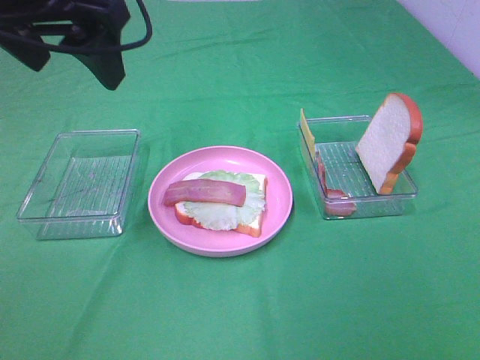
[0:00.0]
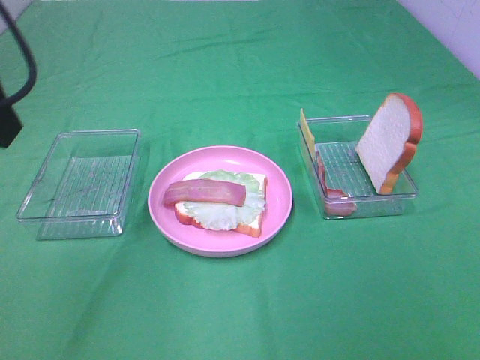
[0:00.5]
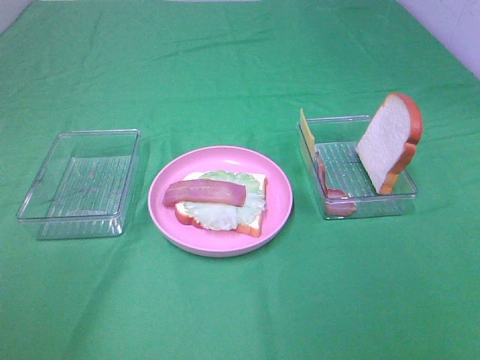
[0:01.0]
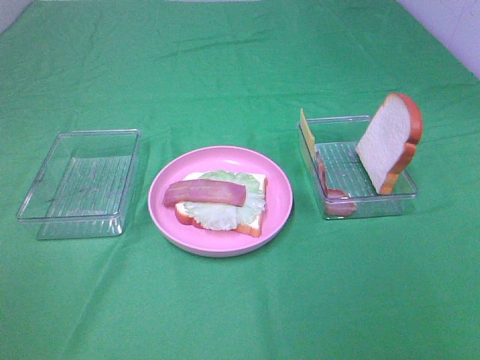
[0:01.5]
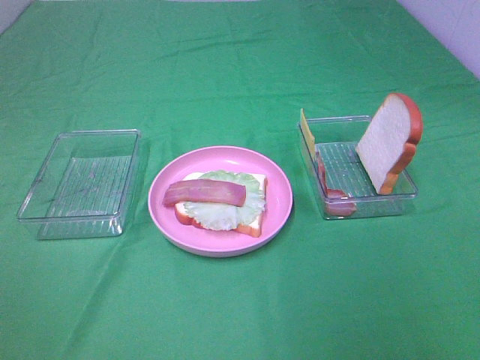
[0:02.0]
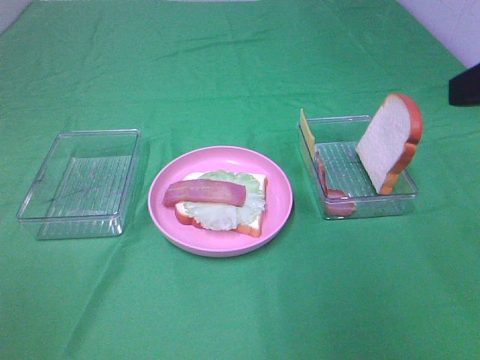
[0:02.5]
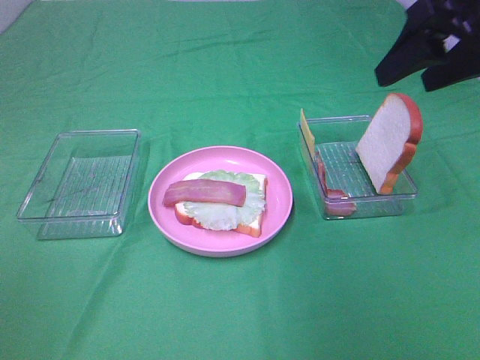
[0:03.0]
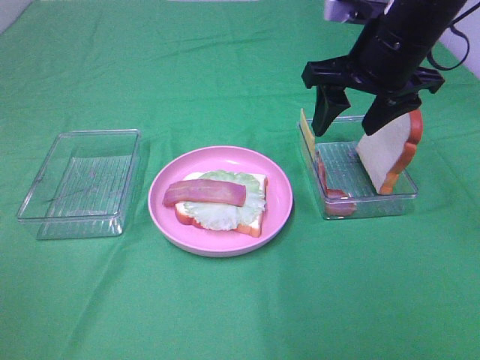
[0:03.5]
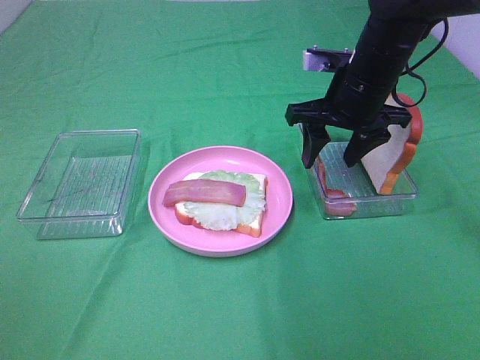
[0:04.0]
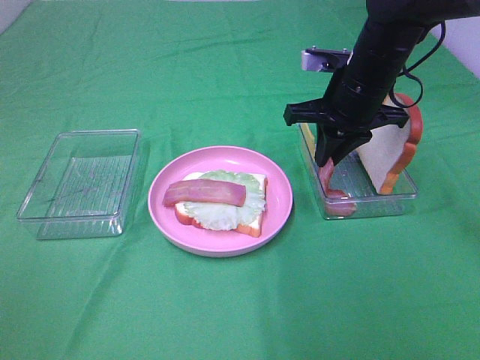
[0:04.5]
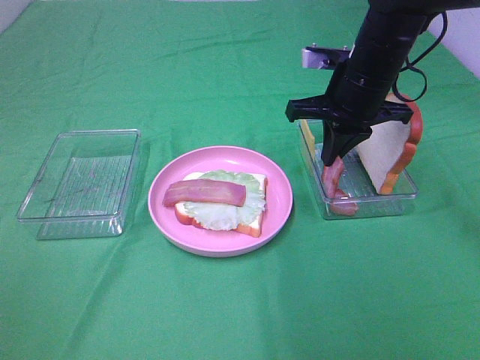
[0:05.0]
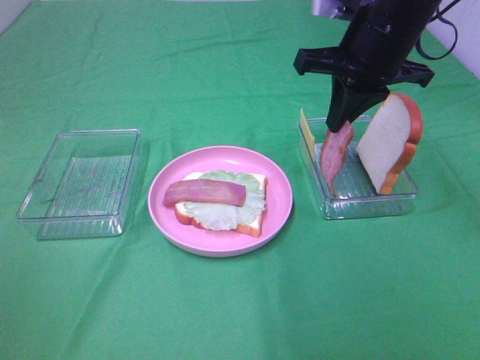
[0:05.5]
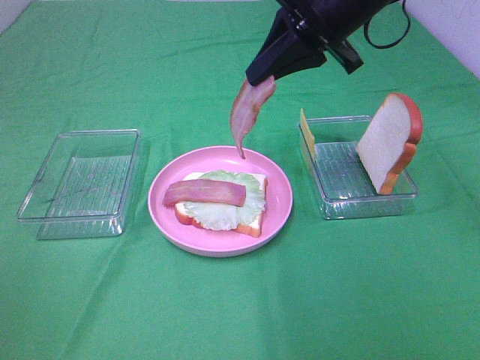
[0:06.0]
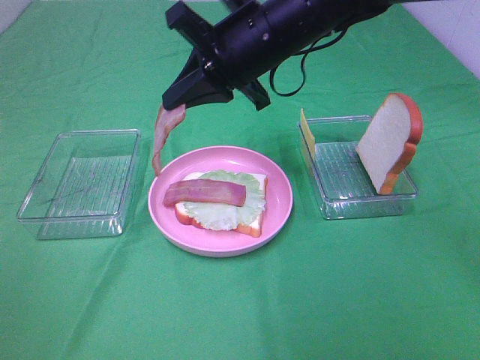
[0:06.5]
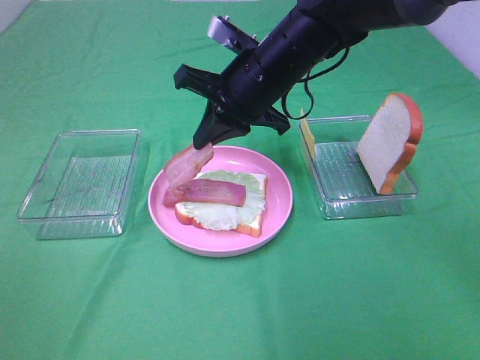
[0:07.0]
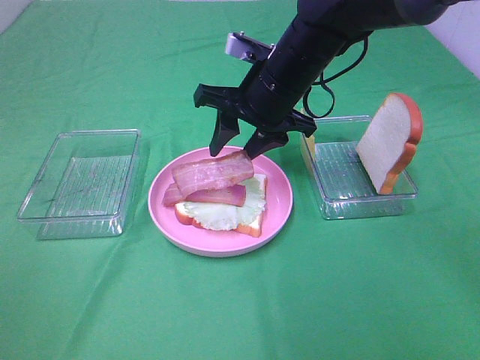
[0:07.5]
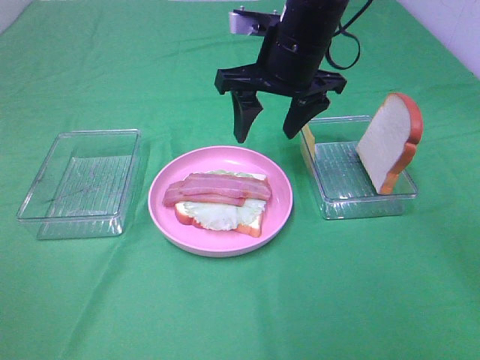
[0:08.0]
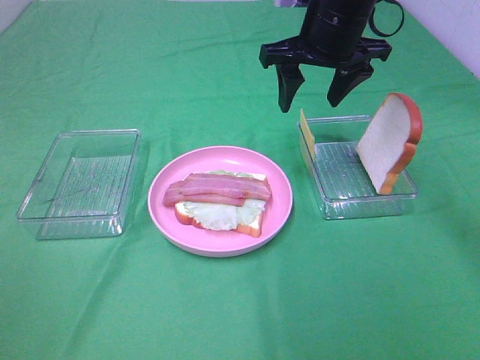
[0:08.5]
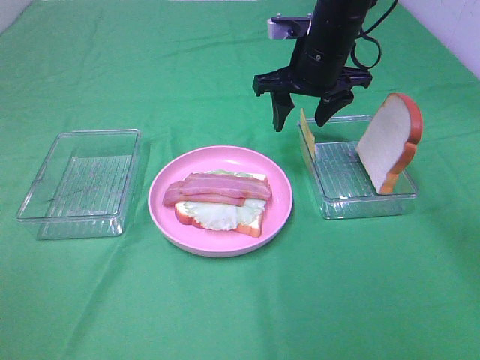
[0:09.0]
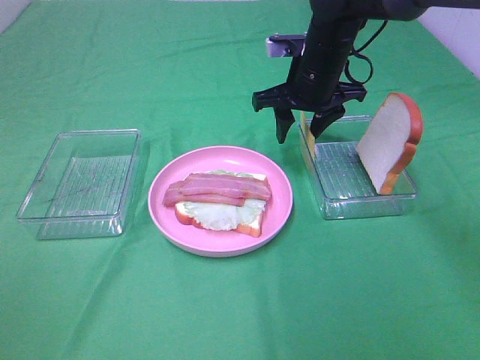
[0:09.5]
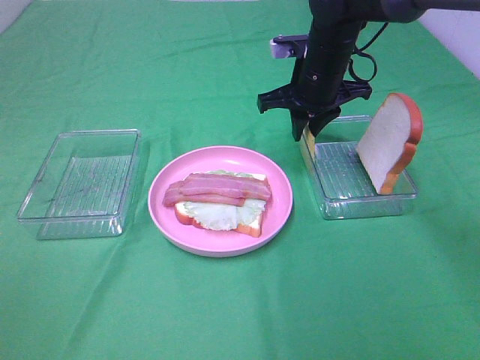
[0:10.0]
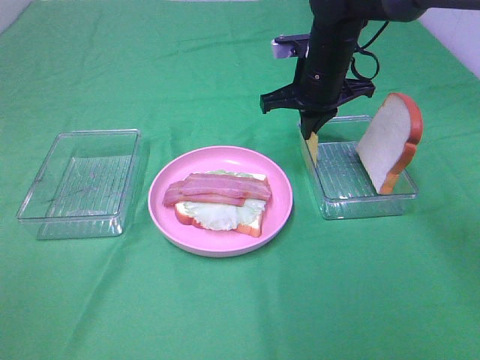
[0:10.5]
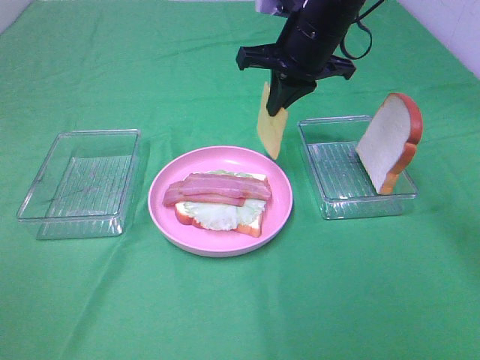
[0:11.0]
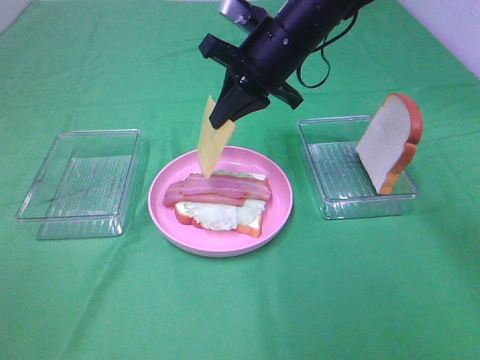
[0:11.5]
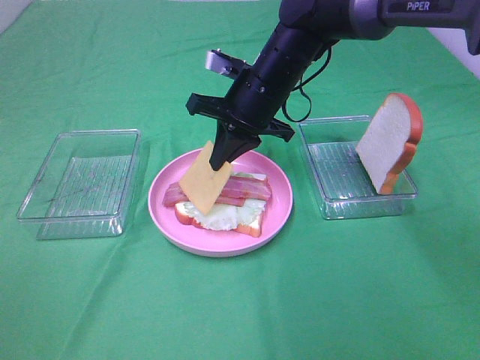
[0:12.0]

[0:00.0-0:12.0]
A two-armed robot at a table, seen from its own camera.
Task of the whole recording: Make sandwiches.
Step, 0:00.0 to 0:04.5: Right hand:grab the bacon.
Step, 0:05.0 to 0:07.5: Right hand:place bacon on bacon.
Step, 0:08.0 to 0:10.5: Right hand:grab the cheese slice.
0:00.0 to 0:02.0: The left gripper goes some 35 cm backward and to the left.
0:02.0 to 0:04.0: The right gripper shifts about 35 cm forward.
0:04.0 to 0:06.0: The right gripper moves upward, roughly 10 cm, and closes its fingers.
0:06.0 to 0:08.0: The right gripper moves downward, about 5 cm, and opens.
0:08.0 to 0:10.0: The right gripper goes about 10 cm downward and forward, and closes.
0:10.0 to 0:12.0: The right gripper travels to the left by about 5 cm.

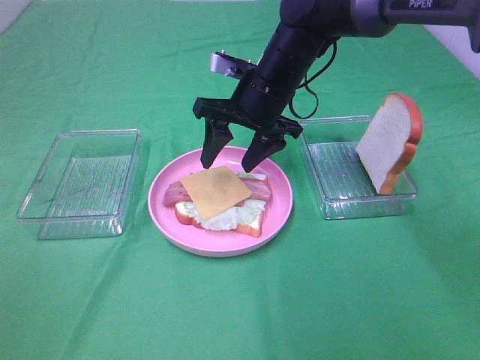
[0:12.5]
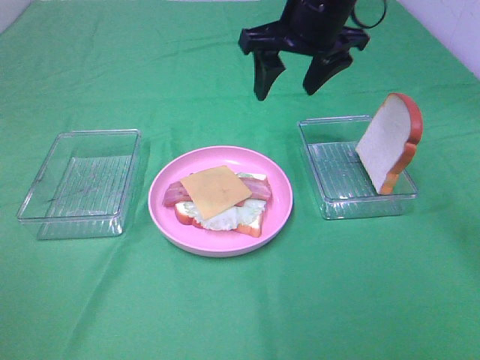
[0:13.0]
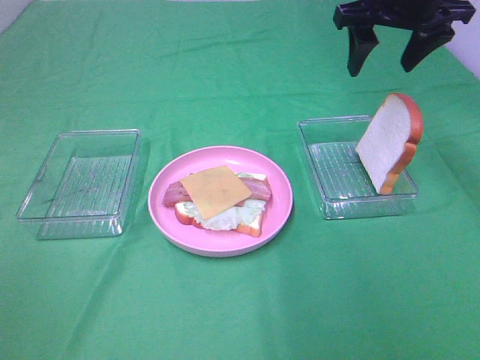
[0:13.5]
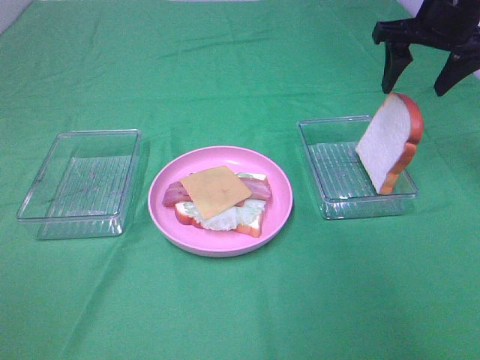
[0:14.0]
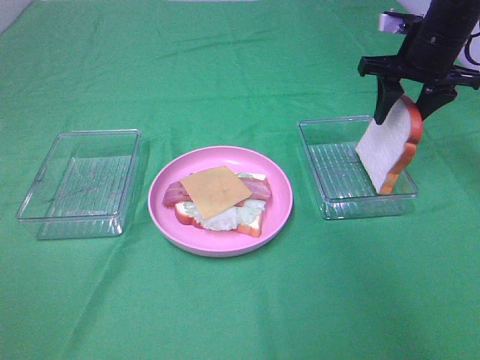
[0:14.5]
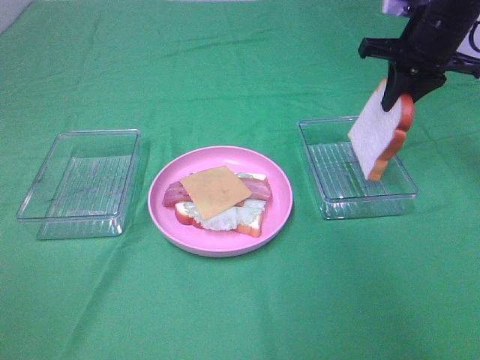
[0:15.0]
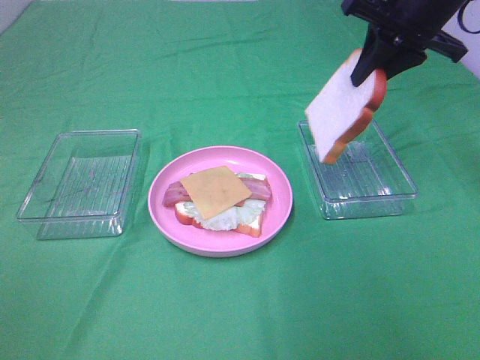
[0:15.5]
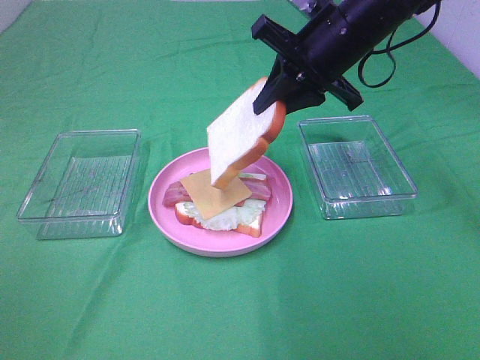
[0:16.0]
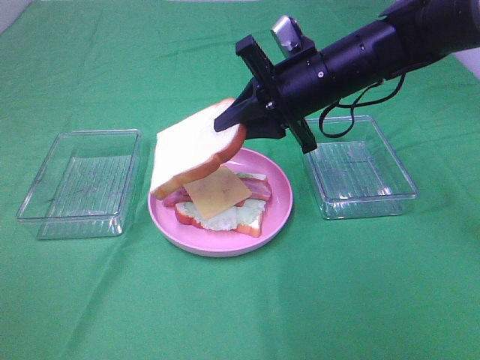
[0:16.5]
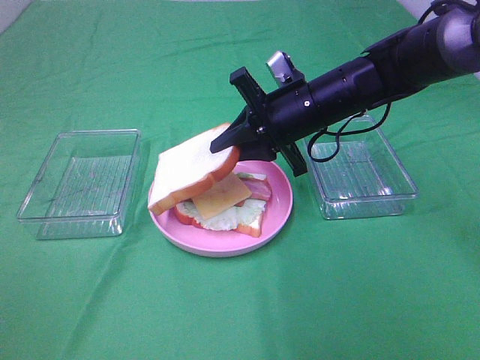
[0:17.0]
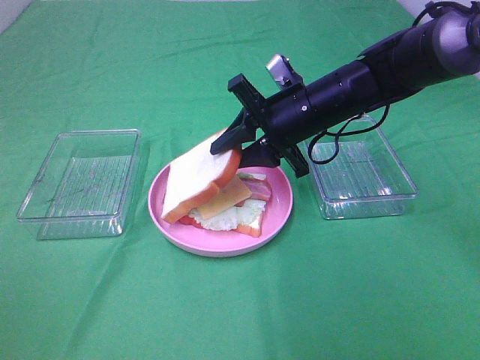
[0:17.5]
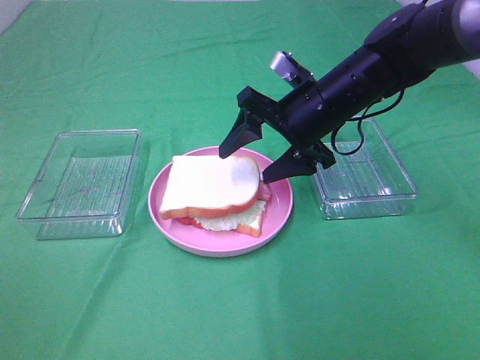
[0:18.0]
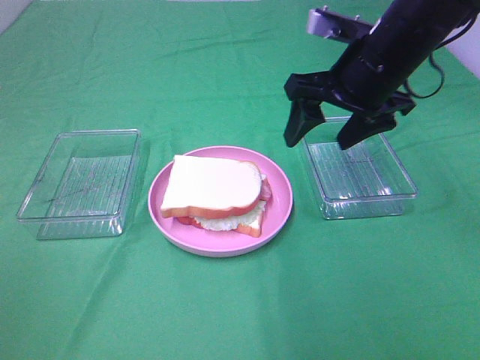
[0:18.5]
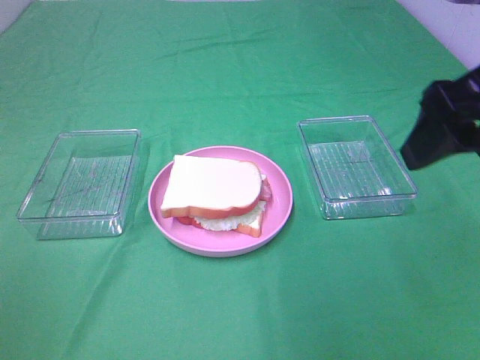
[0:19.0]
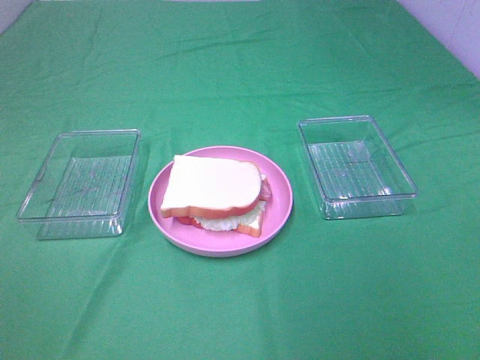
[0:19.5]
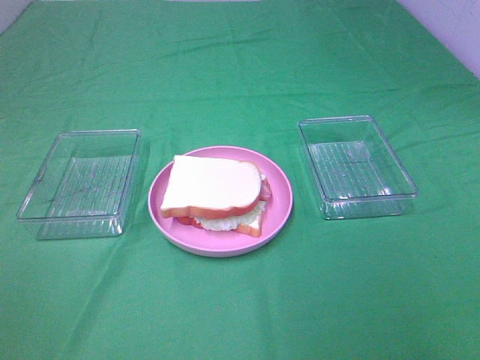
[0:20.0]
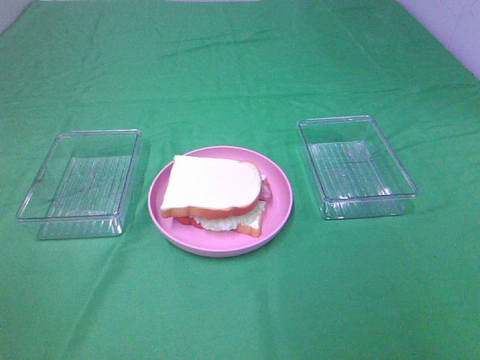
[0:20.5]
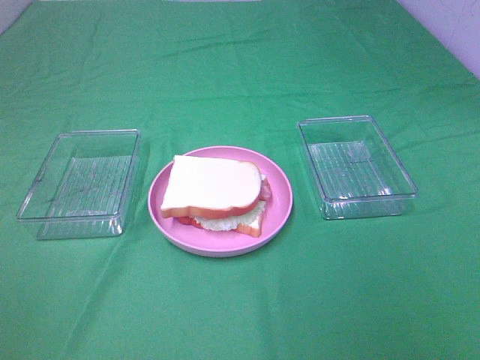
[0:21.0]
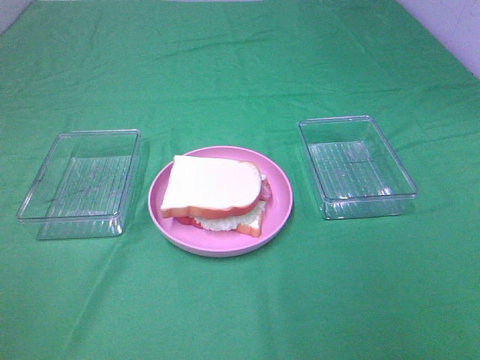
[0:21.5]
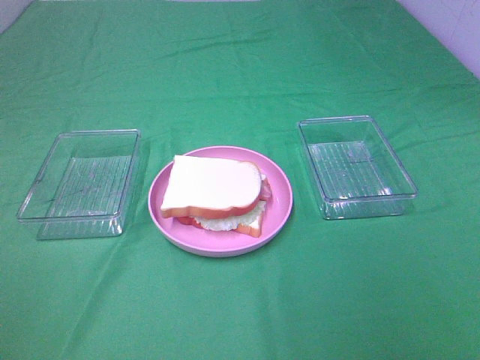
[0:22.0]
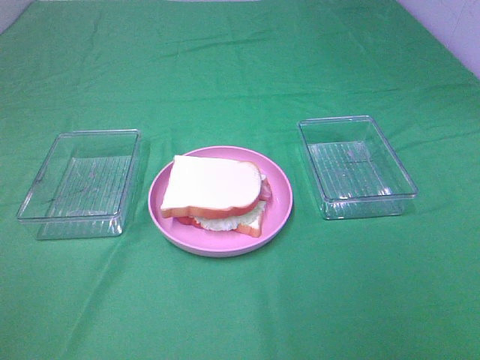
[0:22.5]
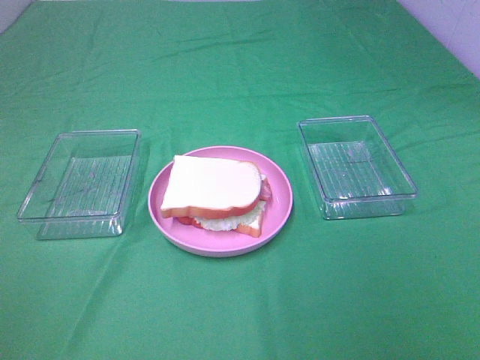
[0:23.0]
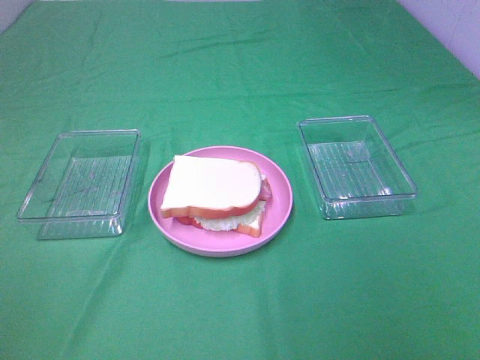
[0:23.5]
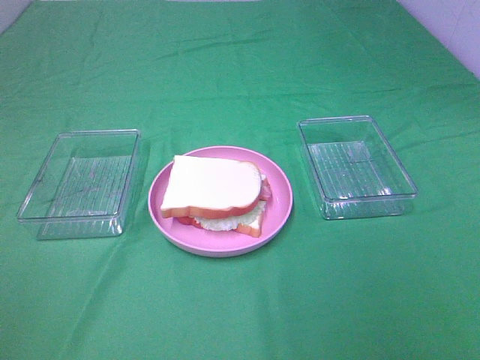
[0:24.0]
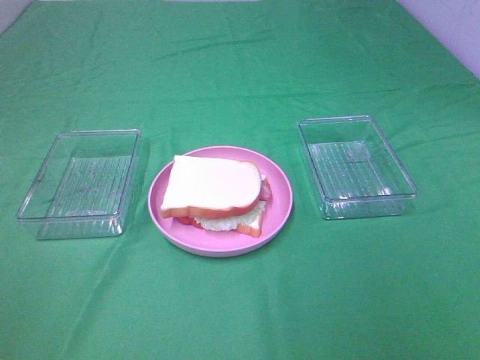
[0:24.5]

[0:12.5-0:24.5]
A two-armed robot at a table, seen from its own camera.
Task of the whole recording: Make sandwiches.
Step, 0:13.0 to 0:14.5: Right hand:grab the bread slice.
Step, 0:15.0 to 0:18.0: Right hand:place the bread slice on the cheese slice.
0:12.5 to 0:14.5: The right gripper moves to the right, some 20 cm.
0:14.5 to 0:16.5: The right gripper moves to the left and backward, approximately 15 cm.
0:16.5 to 0:18.5: The right gripper travels upward by some 5 cm, and opens.
0:18.5 to 0:20.5: The right gripper shifts roughly 35 cm backward.
0:22.5 to 0:24.5: Neither gripper changes place.

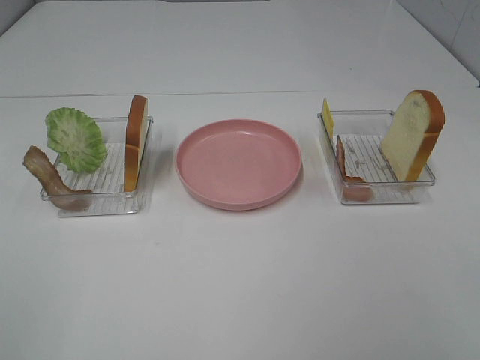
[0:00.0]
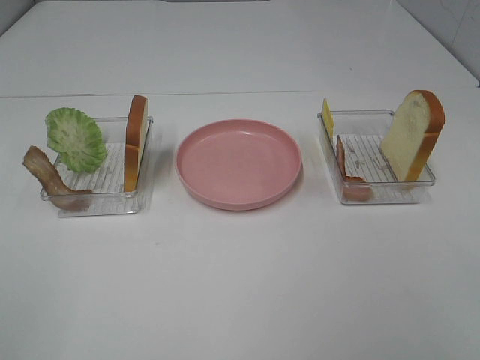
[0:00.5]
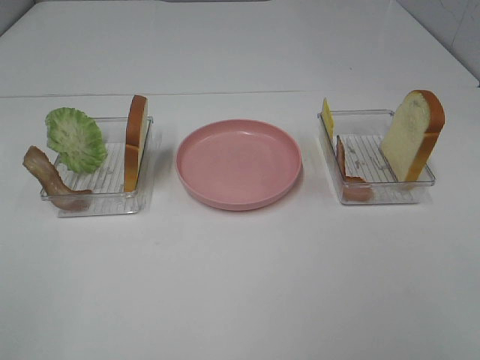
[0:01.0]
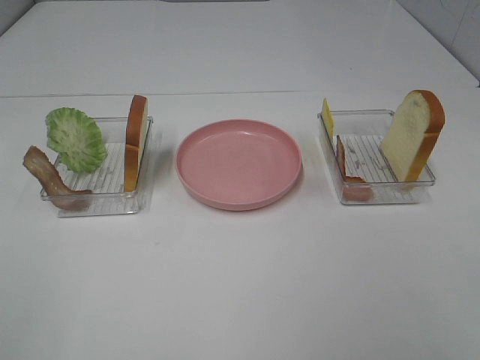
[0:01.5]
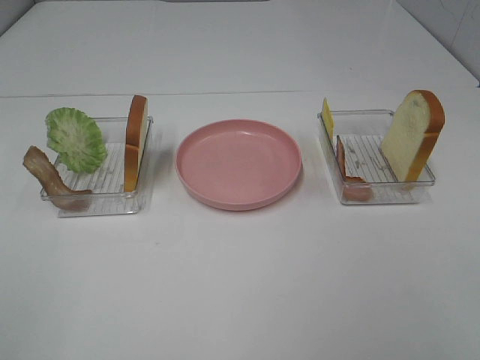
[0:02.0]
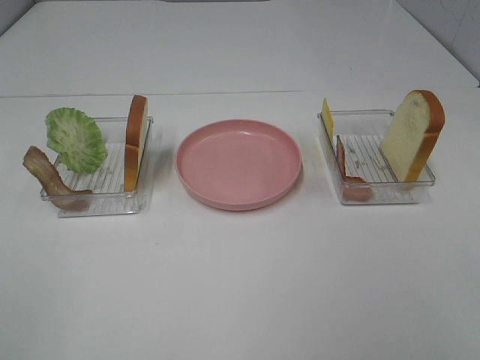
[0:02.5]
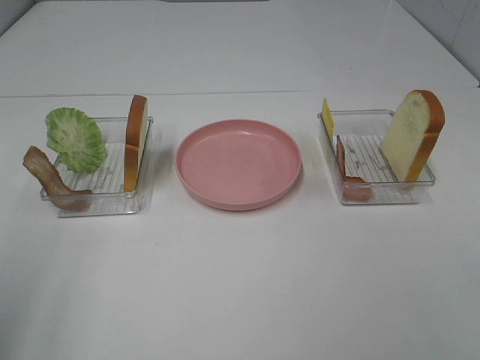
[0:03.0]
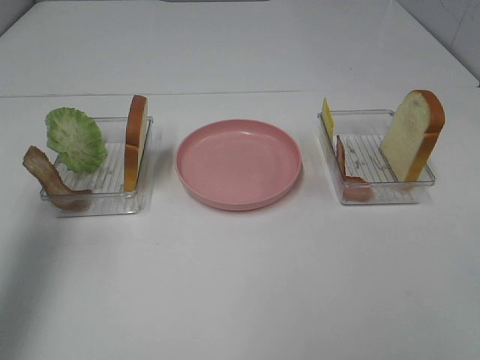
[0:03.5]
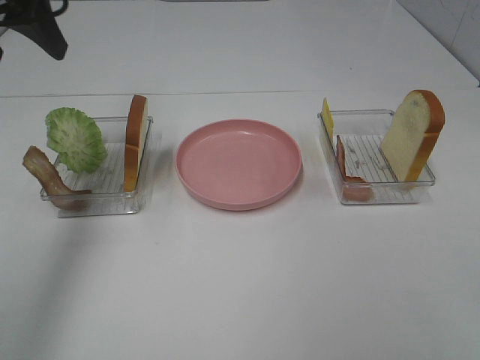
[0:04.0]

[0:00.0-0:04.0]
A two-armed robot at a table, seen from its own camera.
Task of the whole recording: Make sandwiches.
0:00.0 to 0:02.0: Both grippers stay put.
0:02.0 to 0:04.0: The left gripper moves forward, roughly 35 cm.
